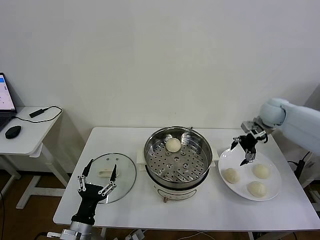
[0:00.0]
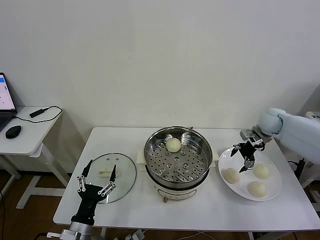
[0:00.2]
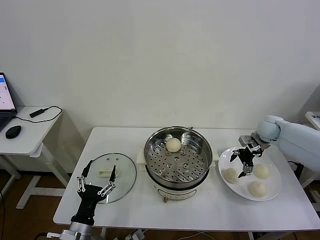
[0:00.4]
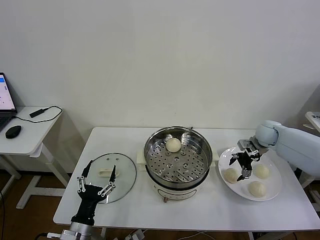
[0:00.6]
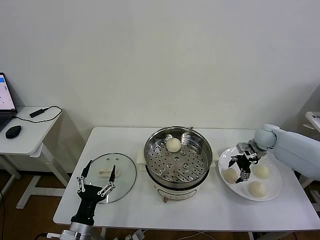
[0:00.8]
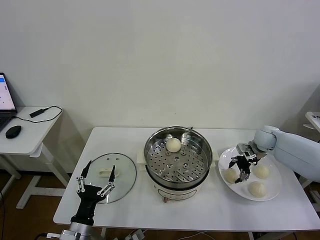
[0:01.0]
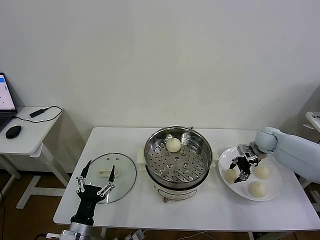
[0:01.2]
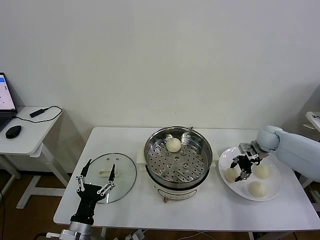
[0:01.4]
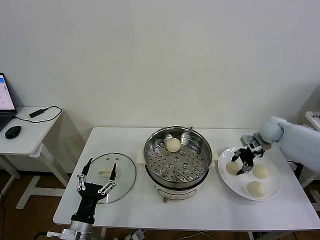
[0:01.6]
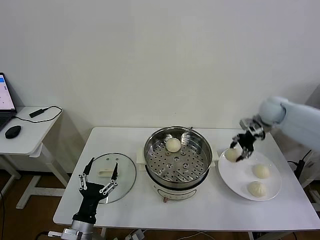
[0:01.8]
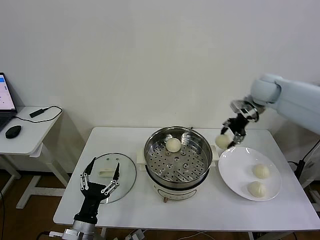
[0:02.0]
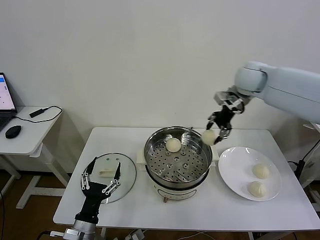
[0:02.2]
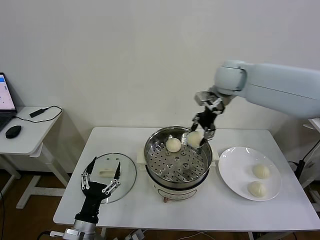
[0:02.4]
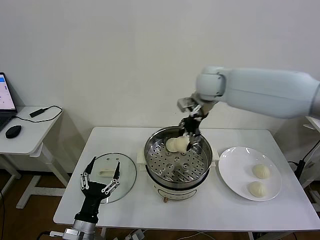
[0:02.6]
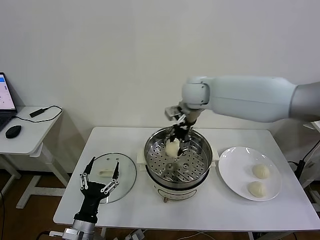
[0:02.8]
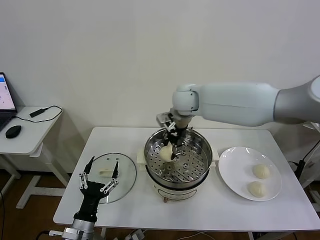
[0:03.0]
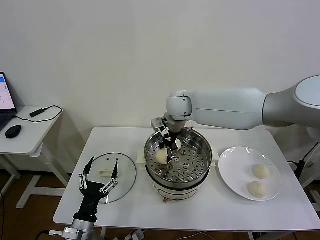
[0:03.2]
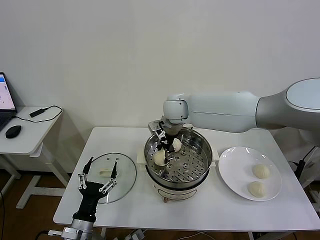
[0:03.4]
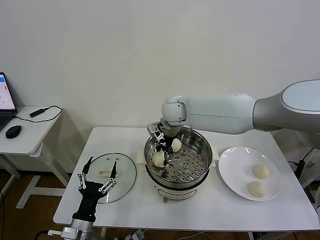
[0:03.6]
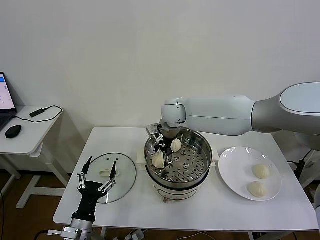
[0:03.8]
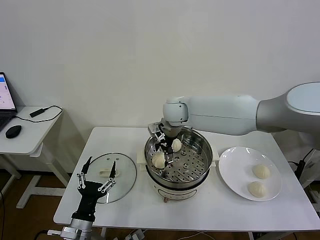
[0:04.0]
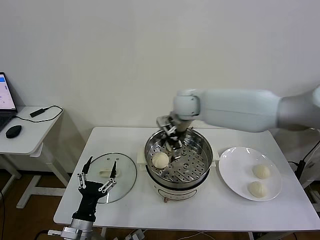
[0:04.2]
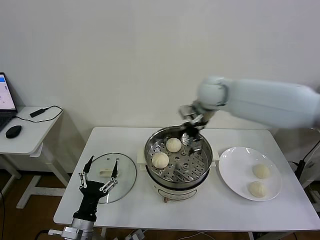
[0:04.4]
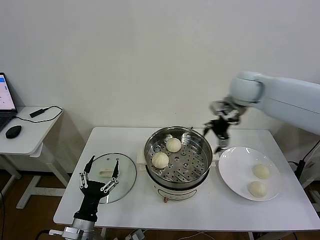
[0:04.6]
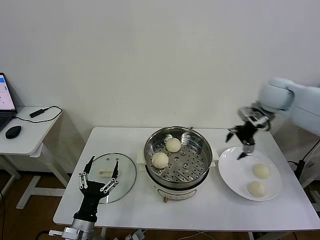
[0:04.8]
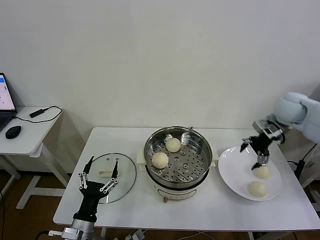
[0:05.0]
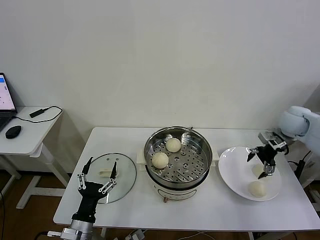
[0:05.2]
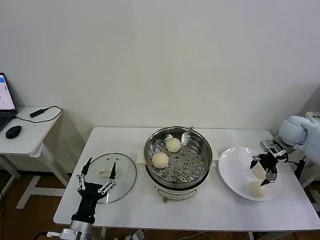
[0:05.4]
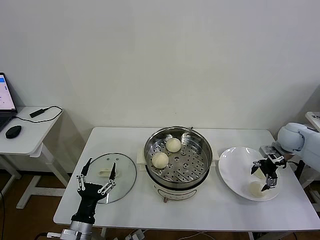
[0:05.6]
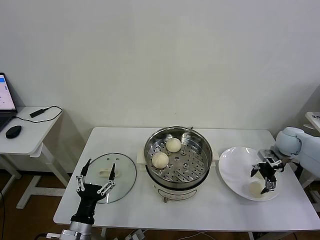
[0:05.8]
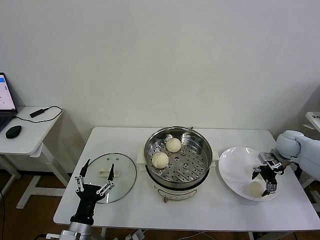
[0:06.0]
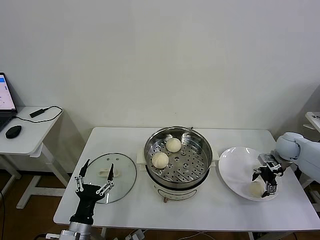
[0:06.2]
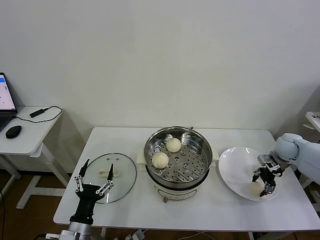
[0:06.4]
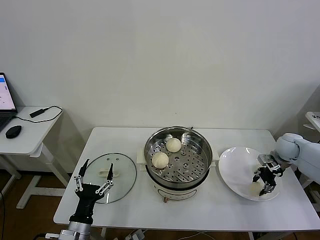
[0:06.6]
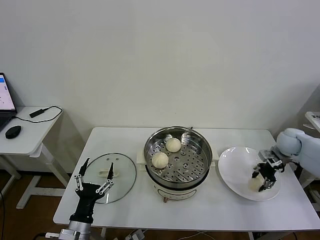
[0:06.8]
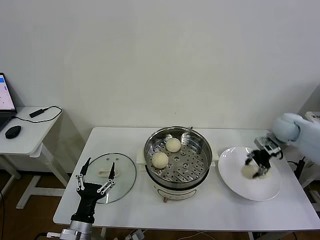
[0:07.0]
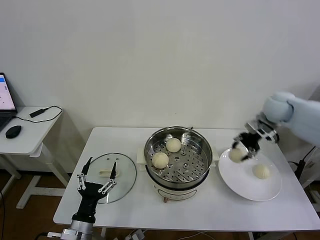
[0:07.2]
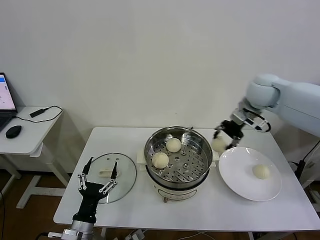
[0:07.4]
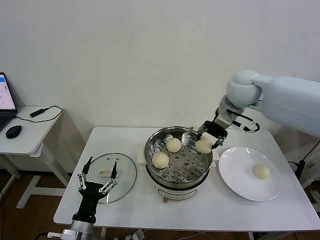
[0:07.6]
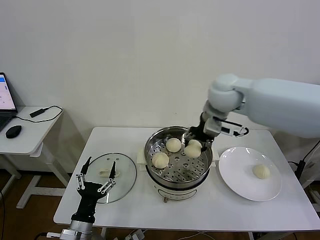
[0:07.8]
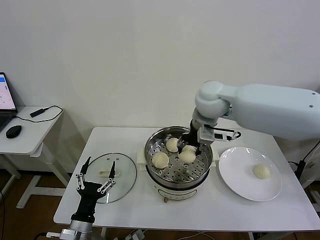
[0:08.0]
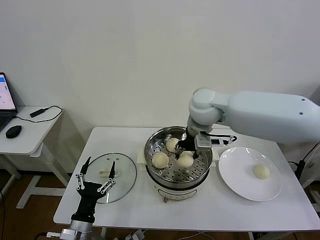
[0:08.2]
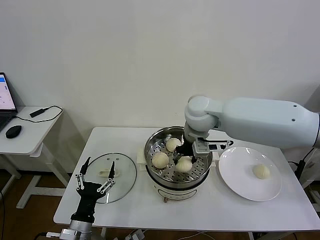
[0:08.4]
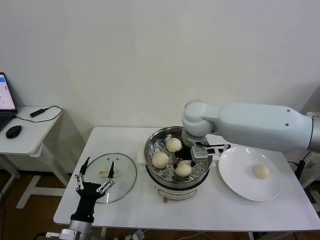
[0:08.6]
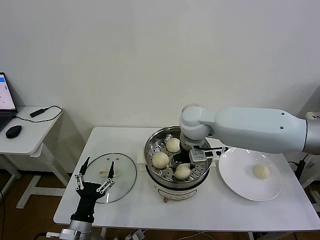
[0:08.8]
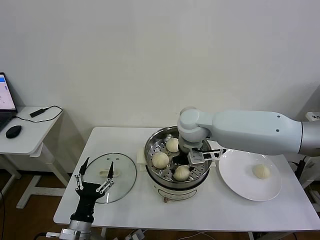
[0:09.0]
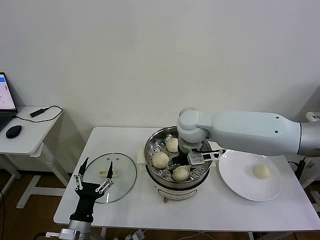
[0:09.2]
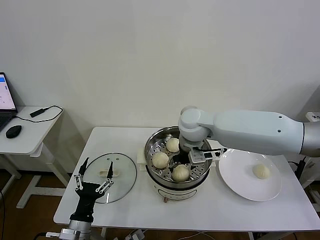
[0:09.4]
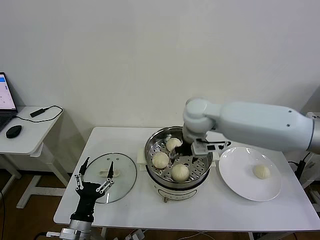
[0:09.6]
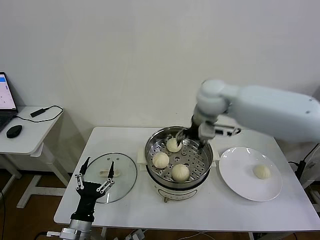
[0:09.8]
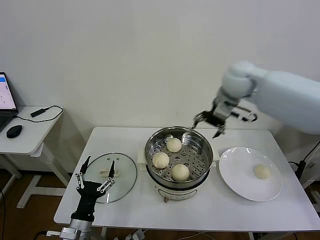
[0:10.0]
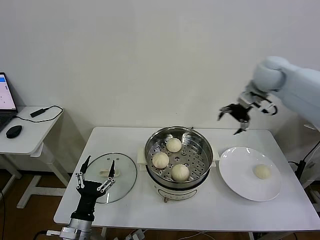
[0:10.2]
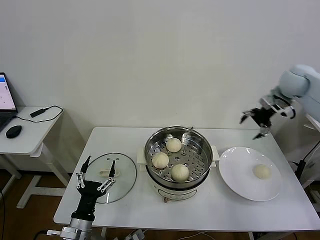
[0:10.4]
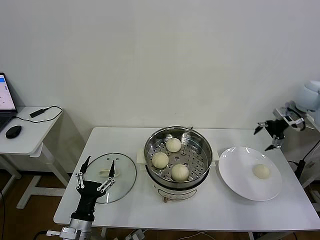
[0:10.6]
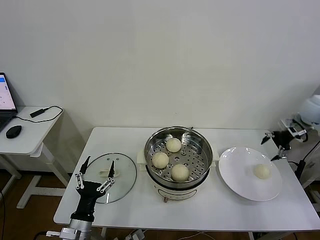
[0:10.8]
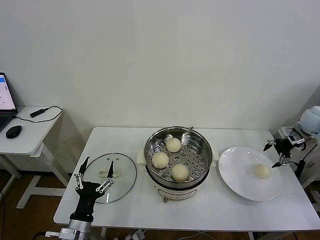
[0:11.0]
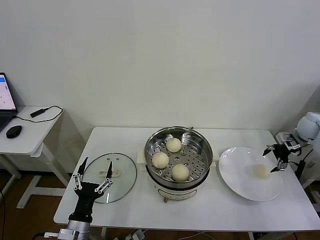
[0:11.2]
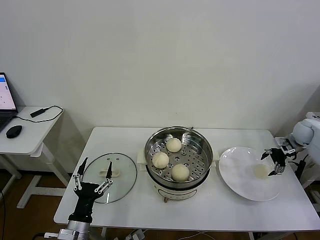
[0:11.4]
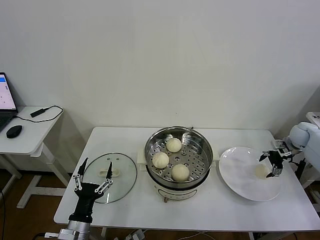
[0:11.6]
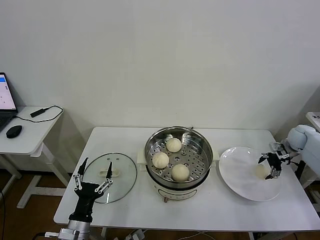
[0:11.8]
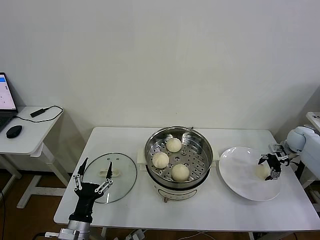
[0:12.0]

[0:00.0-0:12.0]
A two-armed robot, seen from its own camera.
Task of the whole recording: take steamed baozi put them in steamer then cover it.
Step, 0:01.6 to 0:03.8: Place the baozi on the steamer with right gripper.
Step, 0:04.0 to 0:06.6: Grasp the baozi in the plate with right gripper.
Step, 0:06.8 to 0:09.4: Place the baozi on the steamer with right gripper.
0:00.0 to 0:01.6: The right gripper travels downward and back again, about 10 cm each way, and closes.
0:01.6 to 0:03.0: The right gripper moves to the left, roughly 35 cm.
0:03.0 to 0:04.4: The right gripper goes roughly 10 cm to the right, and opens its fingers.
0:04.4 to 0:06.0: The right gripper moves to the right and downward, roughly 35 cm.
0:06.0 to 0:07.6: The right gripper is displaced to the left and upward by roughly 35 cm, and closes its fingers.
0:07.6 to 0:09.0: The right gripper goes roughly 15 cm to the left and downward, and opens its fingers.
0:09.0 to 0:10.4: The right gripper travels to the right by about 35 cm, and opens.
0:10.4 to 0:12.0: The right gripper moves downward and to the right, approximately 25 cm.

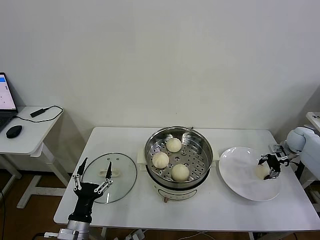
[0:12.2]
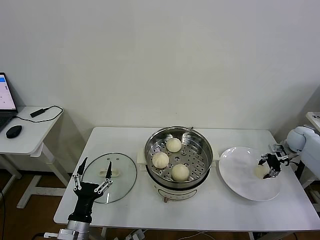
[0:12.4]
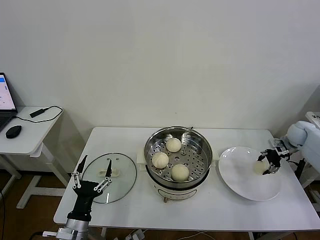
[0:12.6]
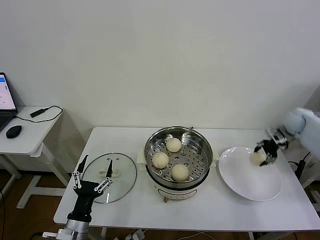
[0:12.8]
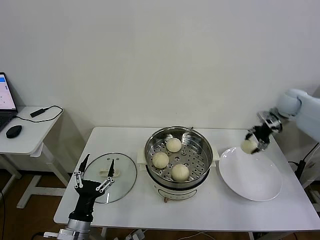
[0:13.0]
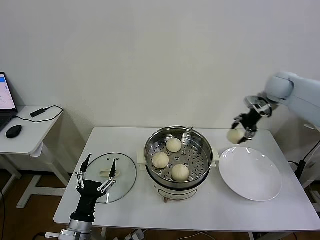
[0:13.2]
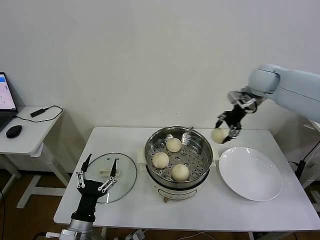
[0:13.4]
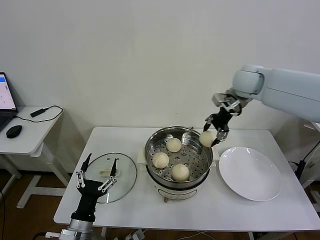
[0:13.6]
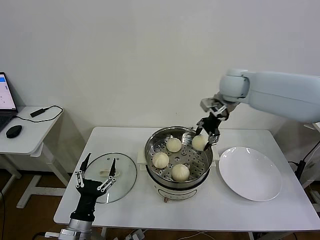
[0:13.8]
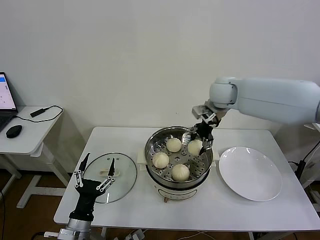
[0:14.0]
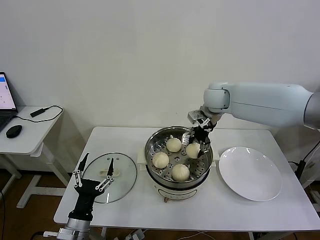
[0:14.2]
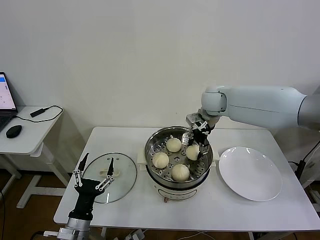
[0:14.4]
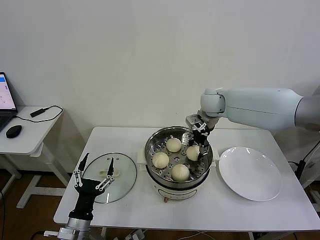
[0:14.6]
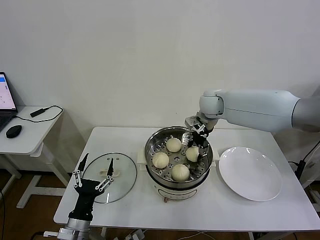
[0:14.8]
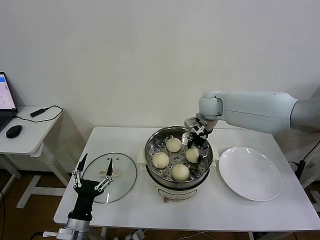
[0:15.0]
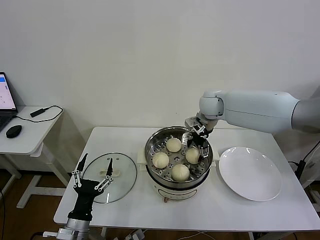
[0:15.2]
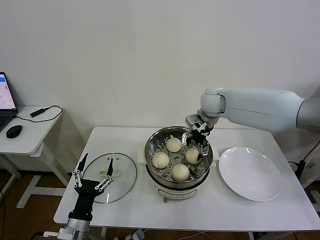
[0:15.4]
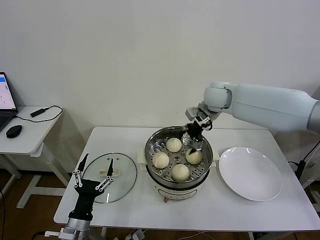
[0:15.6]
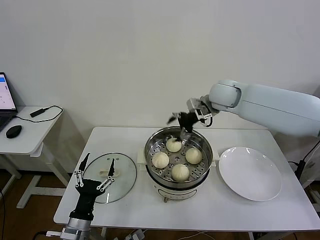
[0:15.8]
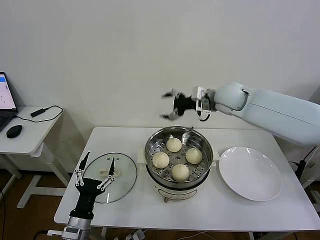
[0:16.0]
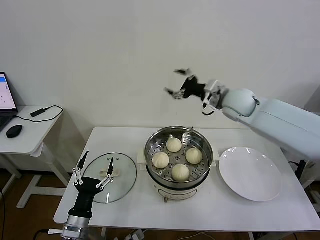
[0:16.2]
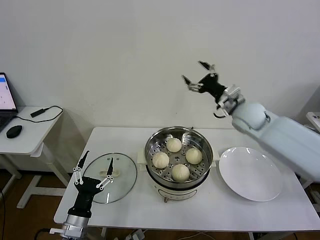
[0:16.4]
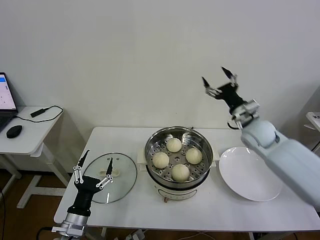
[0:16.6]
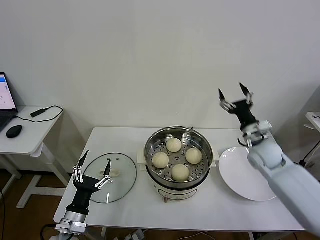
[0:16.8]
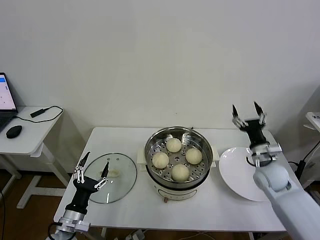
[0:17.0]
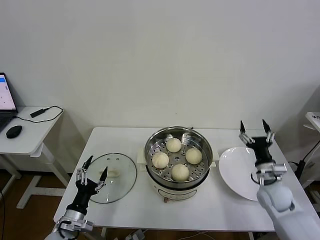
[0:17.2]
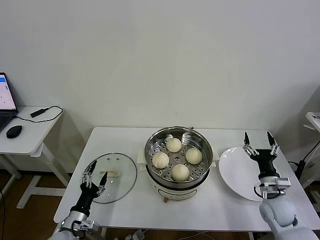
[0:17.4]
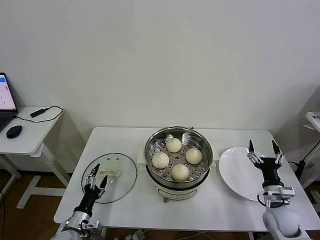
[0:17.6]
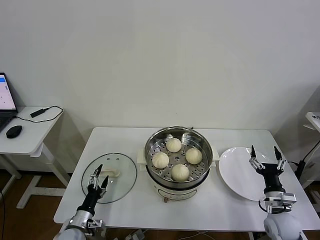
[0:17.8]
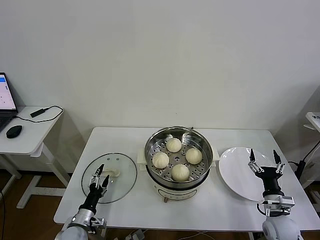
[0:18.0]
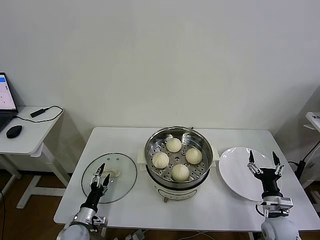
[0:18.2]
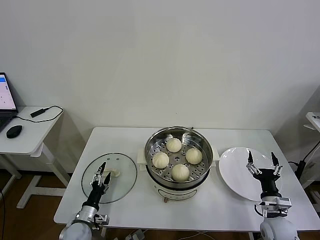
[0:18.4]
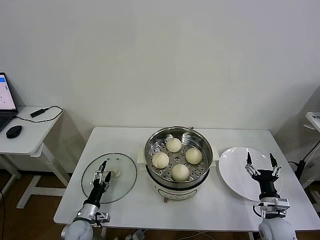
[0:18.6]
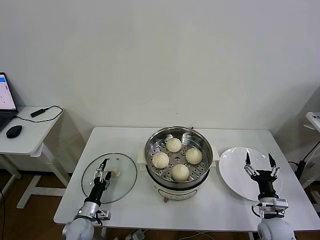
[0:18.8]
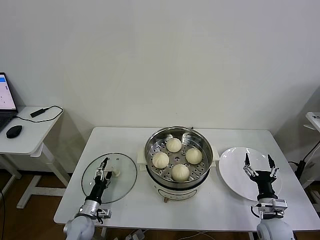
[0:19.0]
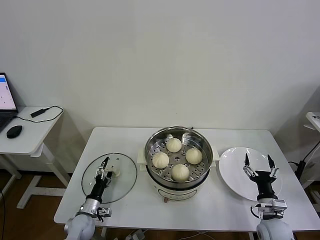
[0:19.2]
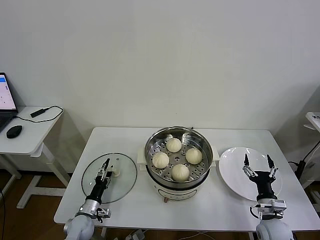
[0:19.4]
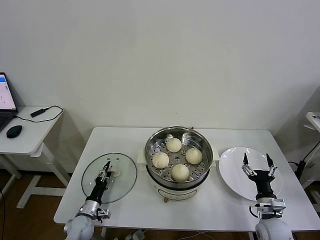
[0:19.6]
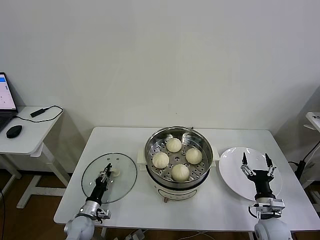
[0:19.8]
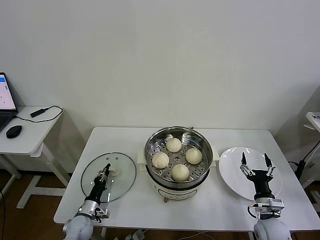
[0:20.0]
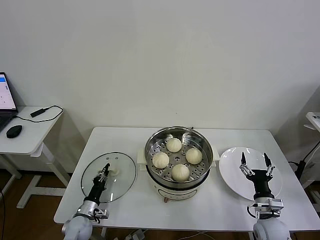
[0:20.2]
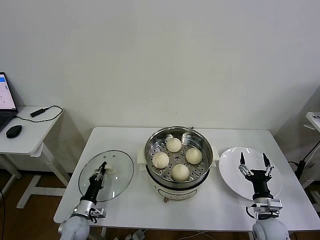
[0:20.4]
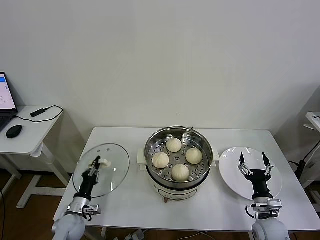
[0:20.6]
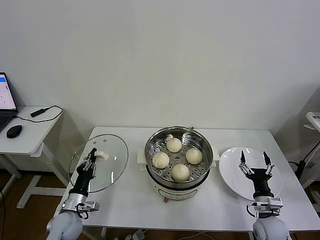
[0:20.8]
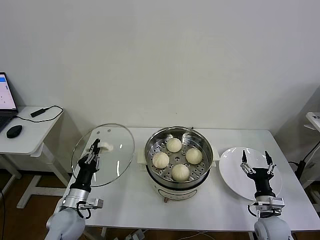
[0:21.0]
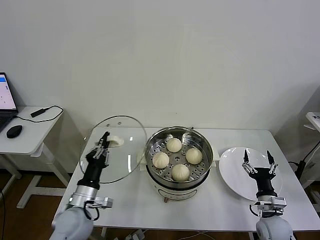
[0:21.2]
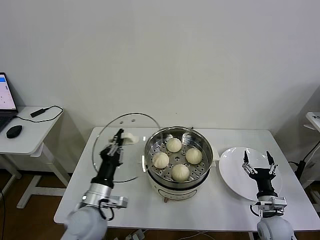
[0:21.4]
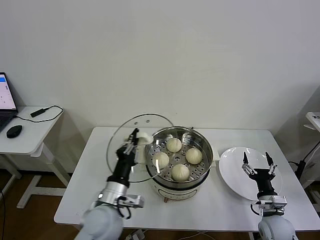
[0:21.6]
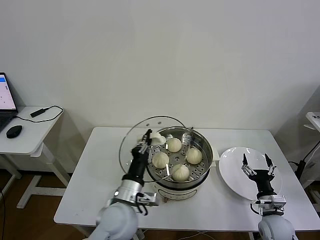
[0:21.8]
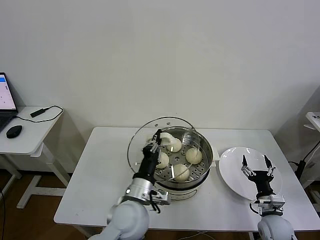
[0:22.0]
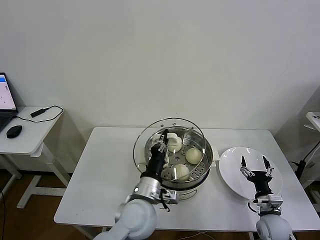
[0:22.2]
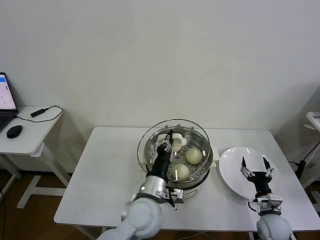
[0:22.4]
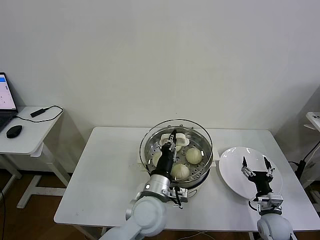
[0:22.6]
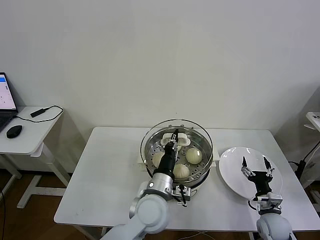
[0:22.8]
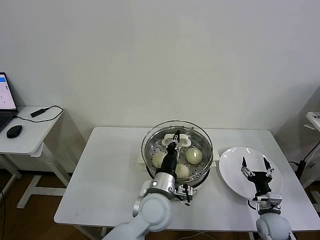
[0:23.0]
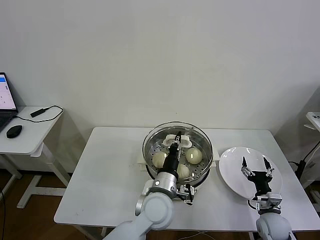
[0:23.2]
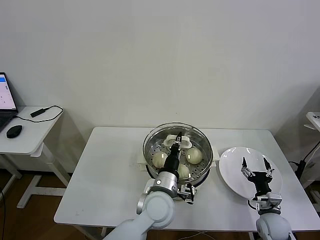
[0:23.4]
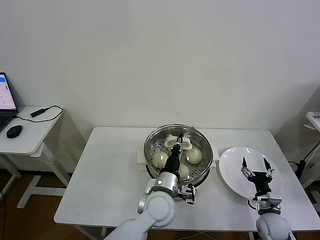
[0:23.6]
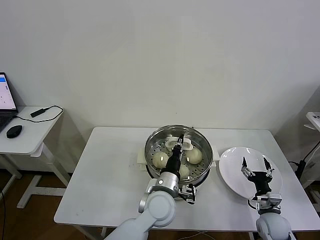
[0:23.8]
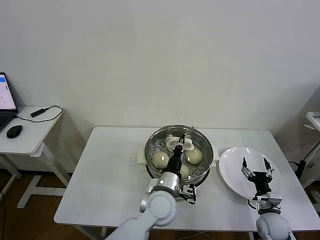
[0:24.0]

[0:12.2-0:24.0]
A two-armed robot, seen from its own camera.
Task of the whole recording: take steamed baozi put them in steamer then cover it.
Step, 0:12.6 to 0:15.0: Place the baozi on the steamer with right gripper.
Step, 0:15.4 to 0:20.0: Grasp the pot lid with left gripper.
0:12.2 to 0:13.6: The right gripper moves to the left and upward, approximately 35 cm.
0:13.6 to 0:15.2: The right gripper heads downward and to the left, covering roughly 10 cm, and opens up.
0:15.2 to 0:16.6: The right gripper shifts approximately 15 cm to the right and backward.
0:16.6 to 0:18.2: The right gripper is displaced backward and downward by roughly 30 cm. Meanwhile the left gripper moves downward and forward, some 15 cm.
0:18.2 to 0:19.6: The left gripper shifts by about 5 cm, and closes.
0:19.6 to 0:21.0: The left gripper is displaced upward by roughly 15 cm, and closes.
0:21.0 to 0:22.6: The left gripper is displaced to the right by about 25 cm.
0:22.6 to 0:24.0: The left gripper shifts by approximately 5 cm.
